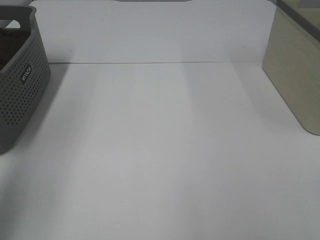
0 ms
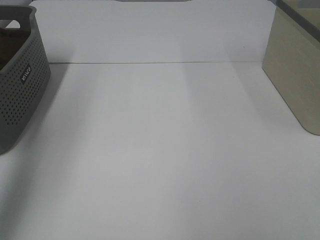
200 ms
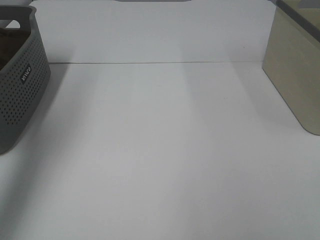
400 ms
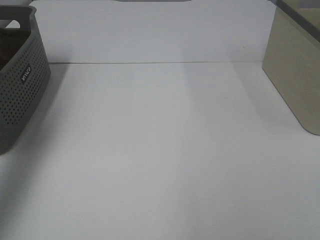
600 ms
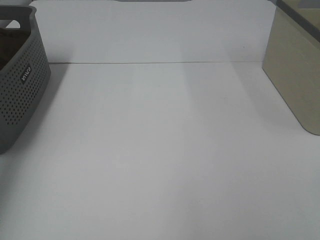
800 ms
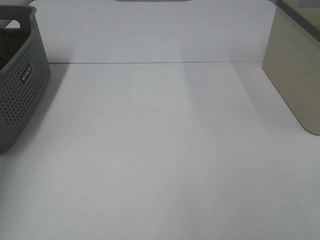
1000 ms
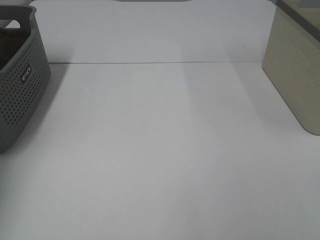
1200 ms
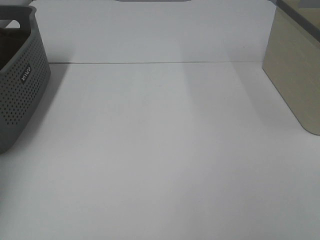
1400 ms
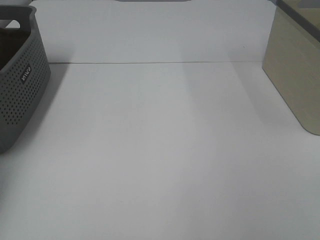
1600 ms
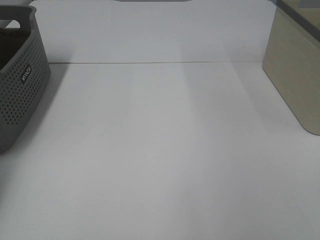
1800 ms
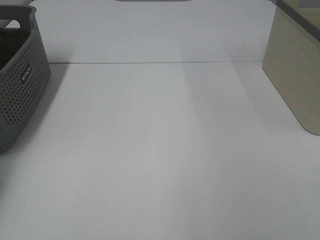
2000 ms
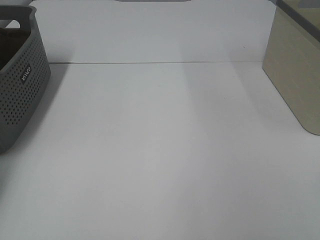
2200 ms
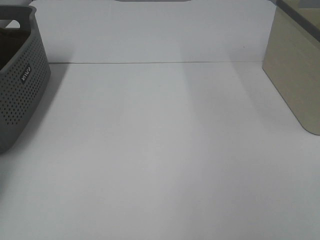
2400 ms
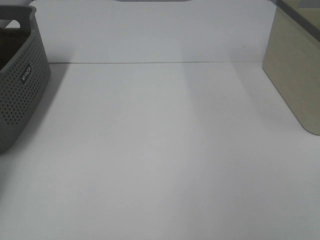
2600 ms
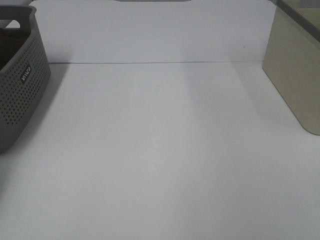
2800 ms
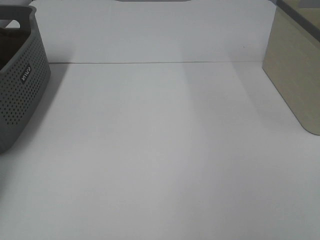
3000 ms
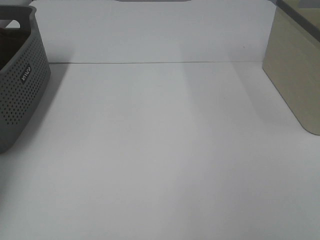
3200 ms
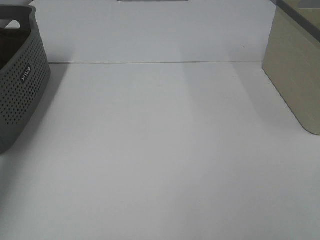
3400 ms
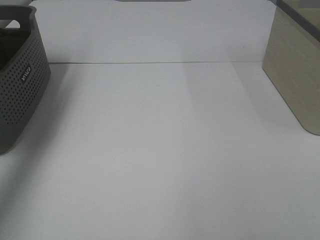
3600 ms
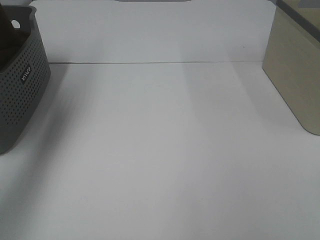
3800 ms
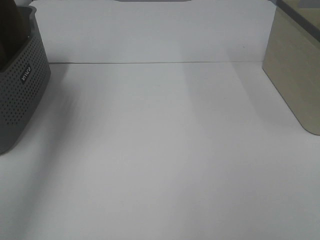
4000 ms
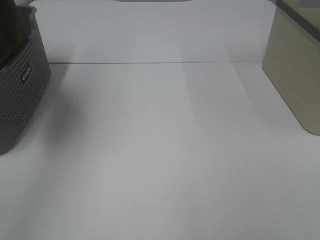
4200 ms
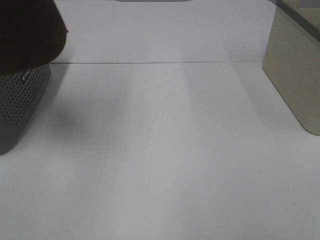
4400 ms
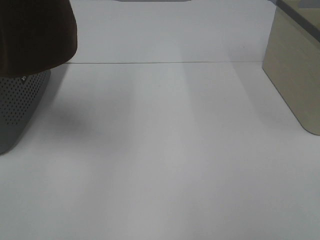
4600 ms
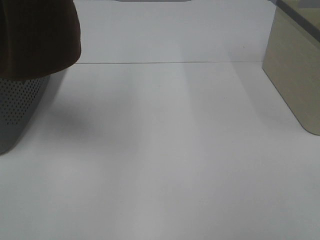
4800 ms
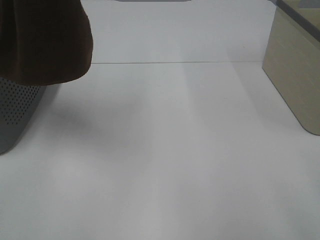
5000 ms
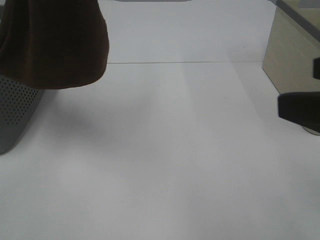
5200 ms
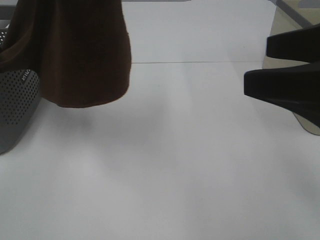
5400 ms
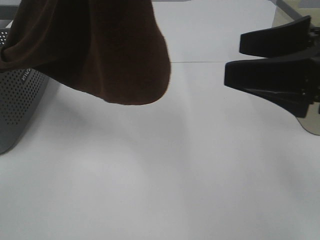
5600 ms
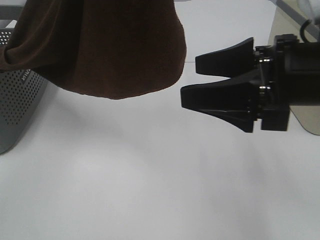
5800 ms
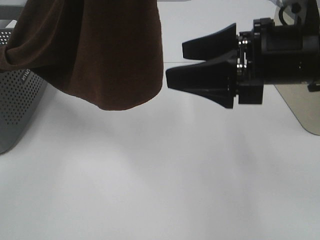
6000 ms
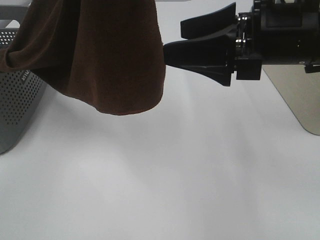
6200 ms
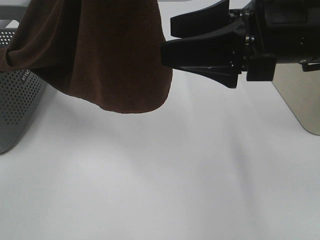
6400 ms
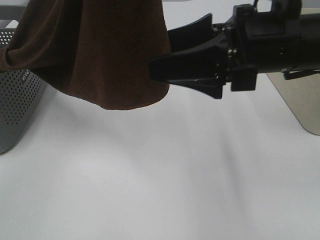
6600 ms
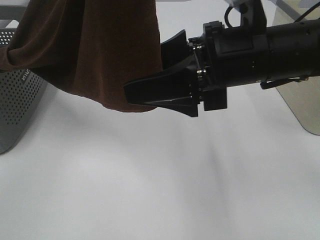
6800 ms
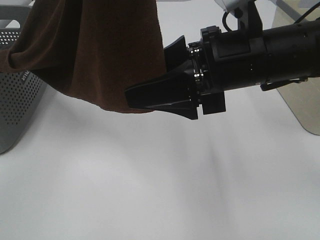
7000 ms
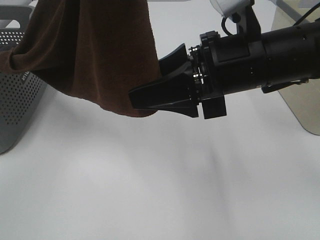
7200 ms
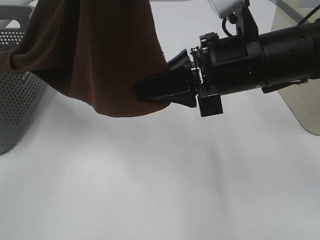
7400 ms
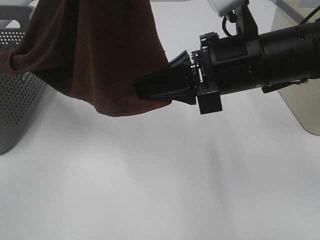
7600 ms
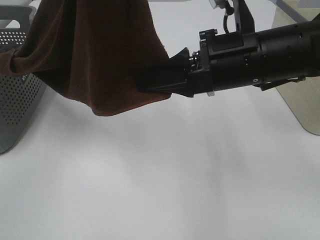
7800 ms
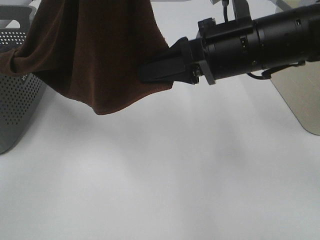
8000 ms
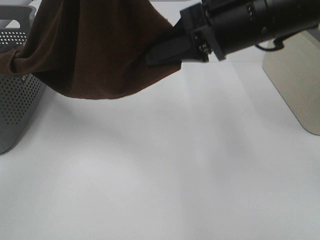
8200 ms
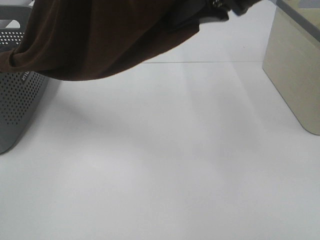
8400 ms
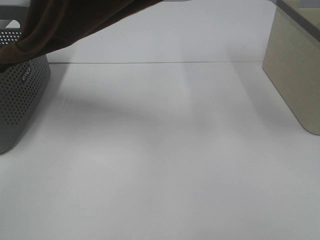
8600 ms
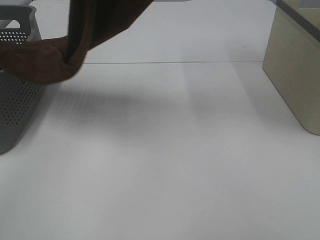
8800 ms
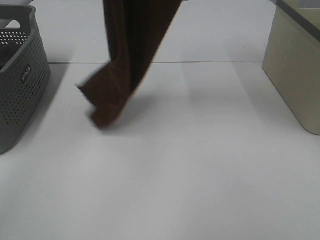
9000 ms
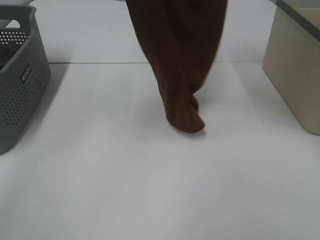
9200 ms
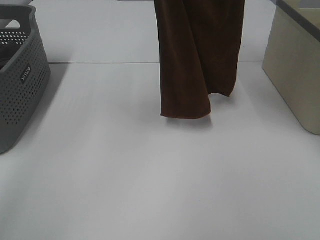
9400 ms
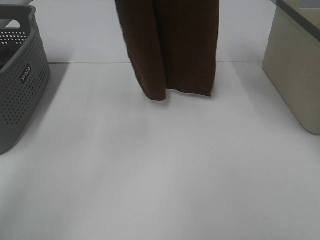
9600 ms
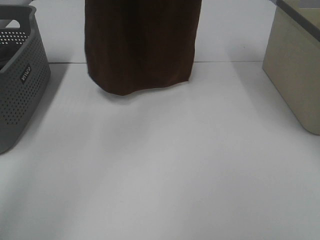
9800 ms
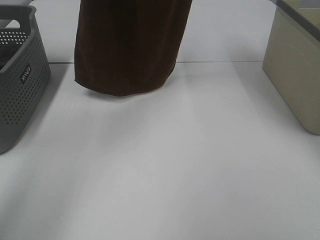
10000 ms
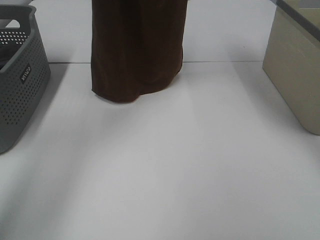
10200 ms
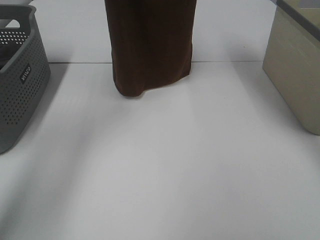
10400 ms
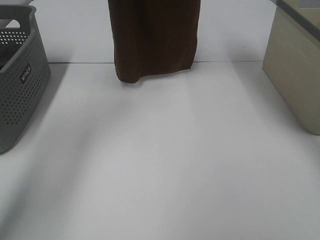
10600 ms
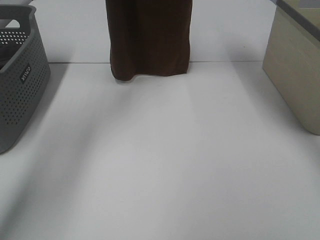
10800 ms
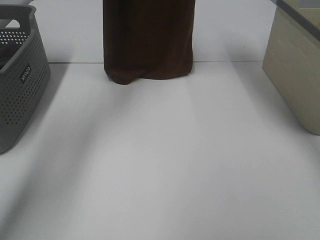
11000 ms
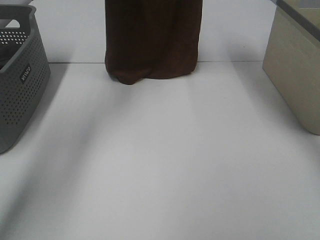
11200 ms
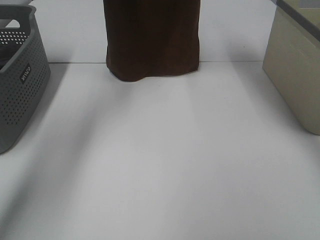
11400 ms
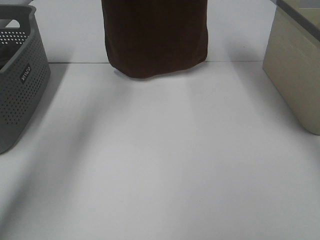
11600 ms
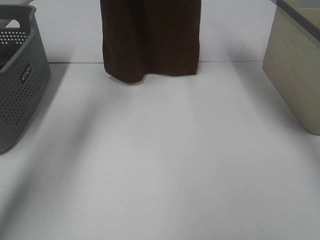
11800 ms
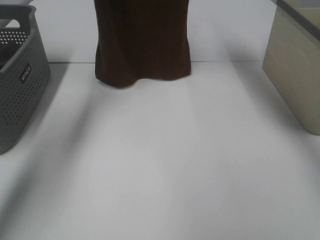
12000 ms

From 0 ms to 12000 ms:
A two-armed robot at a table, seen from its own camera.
Task of the whole recording: Remove the towel and place it.
Step, from 3600 ms to 6800 ms: Right hand: grab a corner of the brown towel and straighten it.
From 0 ms to 1600 ms: The left gripper heads forward, downward and to the left, covering about 35 cm.
From 3000 ms to 4400 ms: The left gripper is displaced upward, to the right and backward by roughly 50 cm.
From 4400 ms to 6000 ms: The left gripper travels to the right by some 10 cm; the right gripper heads forward and to the left, covering about 25 cm.
From 6000 ms to 7600 ms: The right gripper moves approximately 5 cm, and closes.
From 7600 ms to 9000 ms: The right gripper travels upward by roughly 25 cm. The left gripper goes roughly 10 cm forward.
From 9000 ms to 10400 ms: The right gripper heads forward, covering roughly 10 cm. The left gripper shifts about 20 cm forward and downward.
From 10400 ms to 12000 ms: The left gripper travels forward by approximately 5 cm.

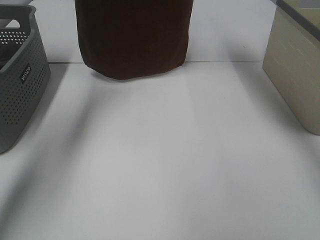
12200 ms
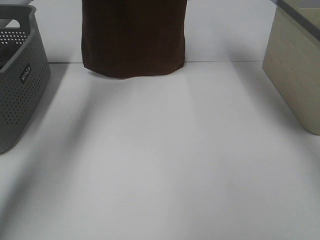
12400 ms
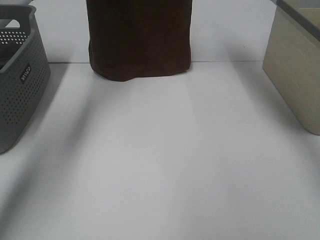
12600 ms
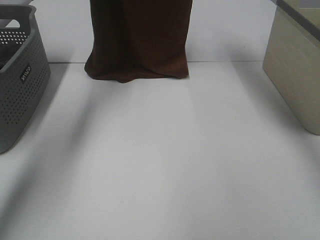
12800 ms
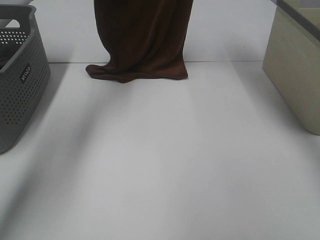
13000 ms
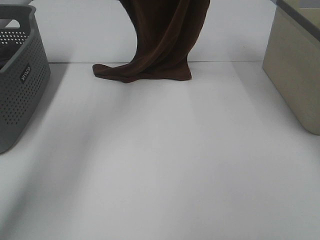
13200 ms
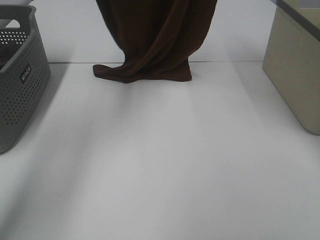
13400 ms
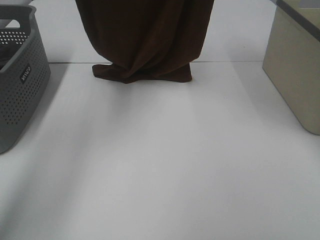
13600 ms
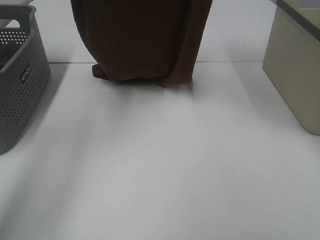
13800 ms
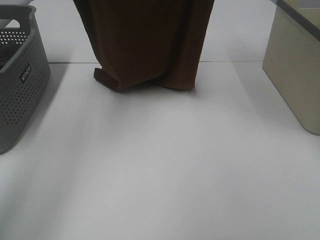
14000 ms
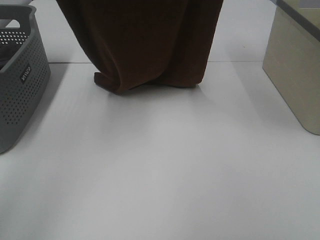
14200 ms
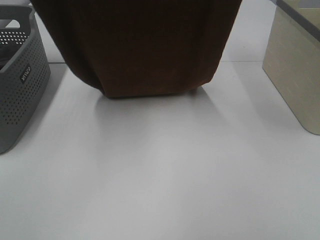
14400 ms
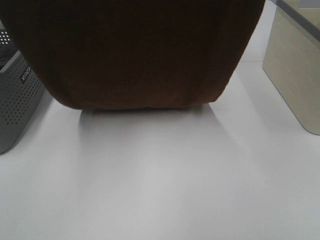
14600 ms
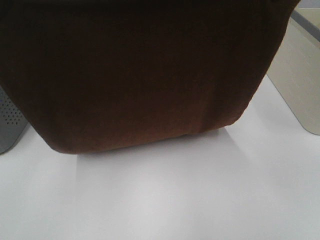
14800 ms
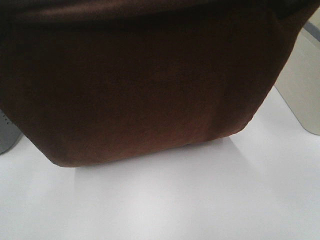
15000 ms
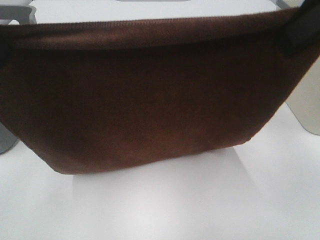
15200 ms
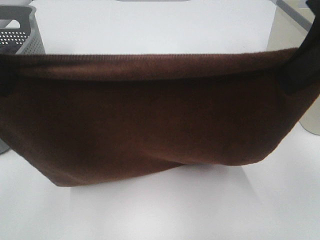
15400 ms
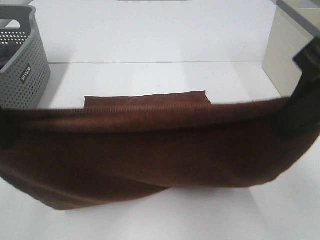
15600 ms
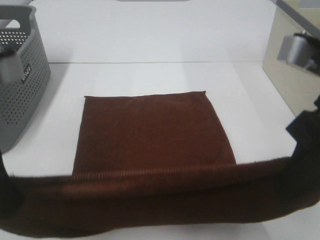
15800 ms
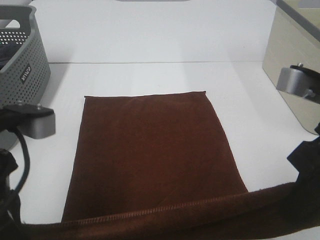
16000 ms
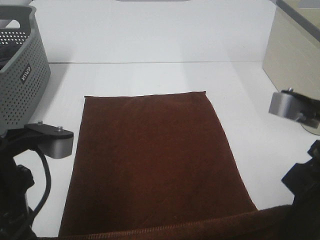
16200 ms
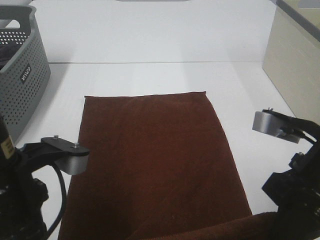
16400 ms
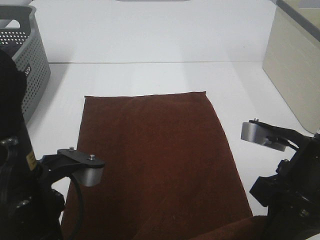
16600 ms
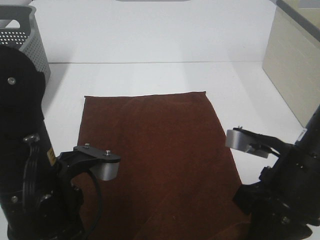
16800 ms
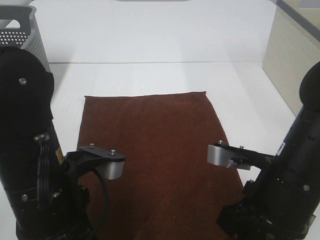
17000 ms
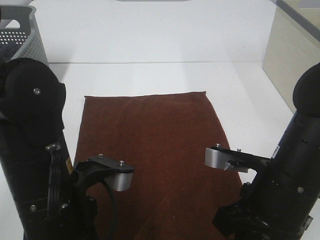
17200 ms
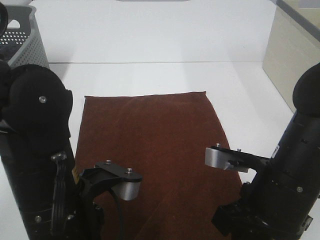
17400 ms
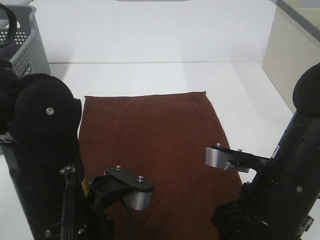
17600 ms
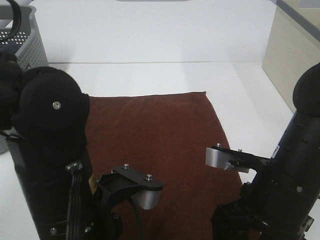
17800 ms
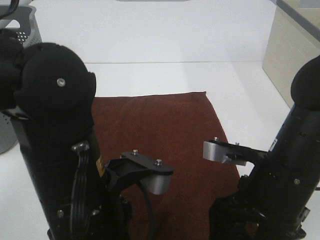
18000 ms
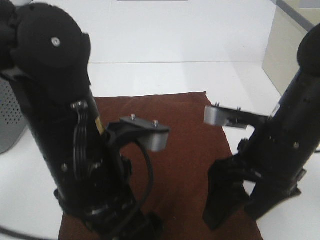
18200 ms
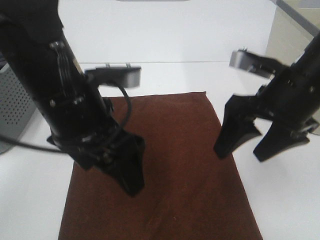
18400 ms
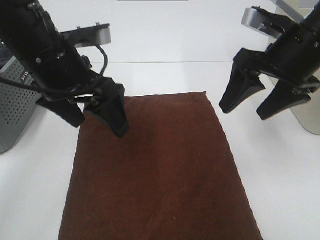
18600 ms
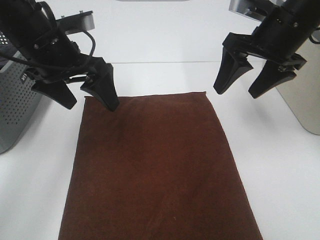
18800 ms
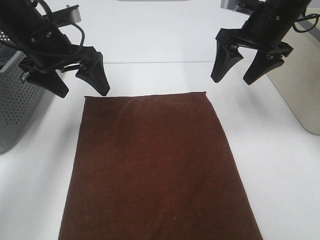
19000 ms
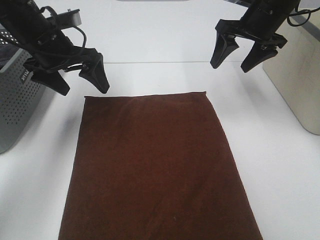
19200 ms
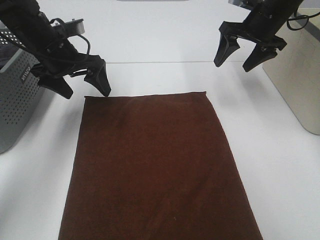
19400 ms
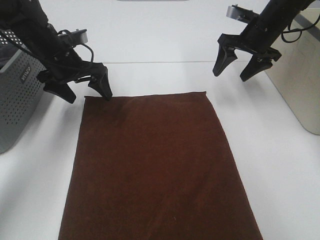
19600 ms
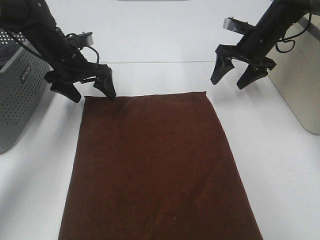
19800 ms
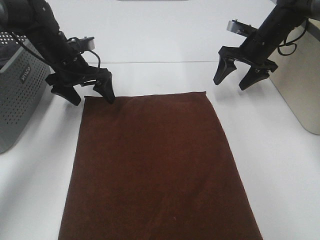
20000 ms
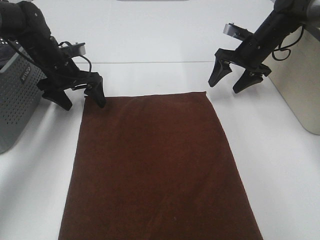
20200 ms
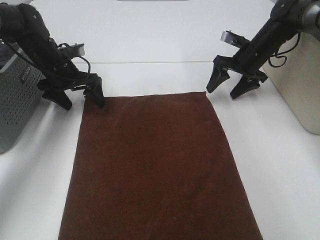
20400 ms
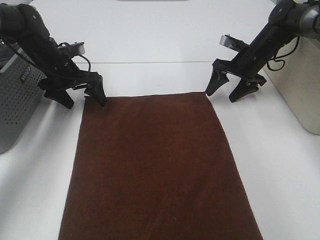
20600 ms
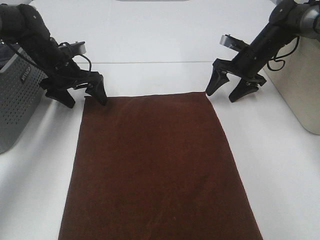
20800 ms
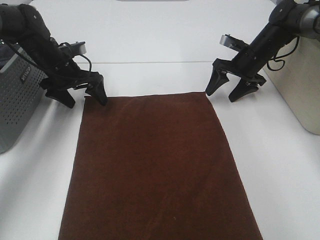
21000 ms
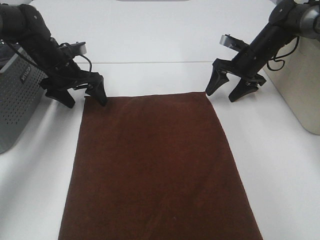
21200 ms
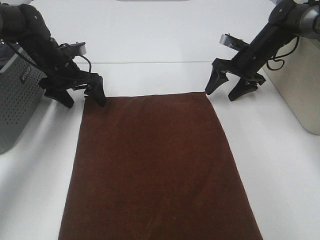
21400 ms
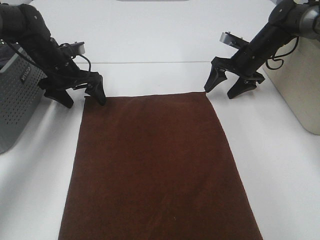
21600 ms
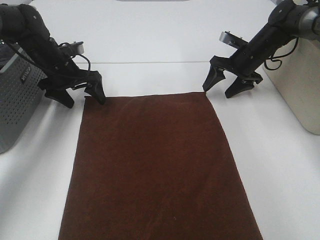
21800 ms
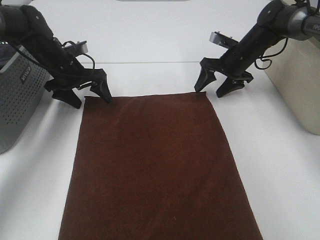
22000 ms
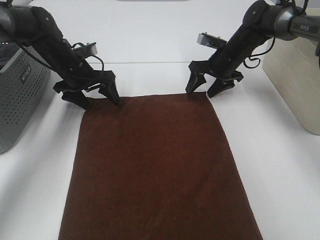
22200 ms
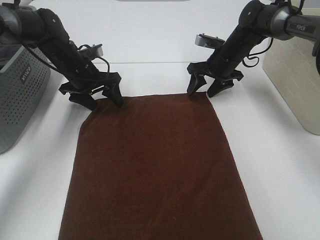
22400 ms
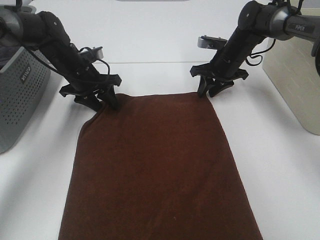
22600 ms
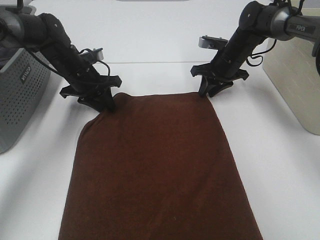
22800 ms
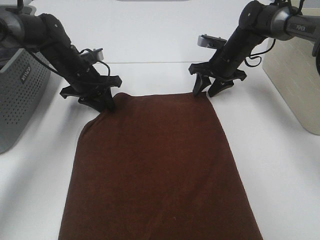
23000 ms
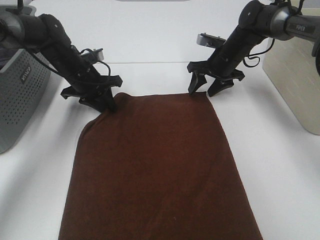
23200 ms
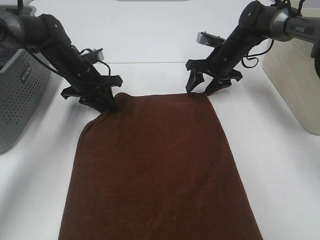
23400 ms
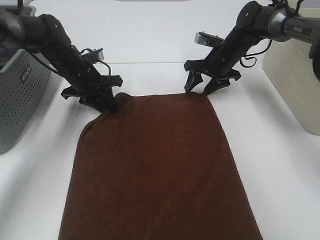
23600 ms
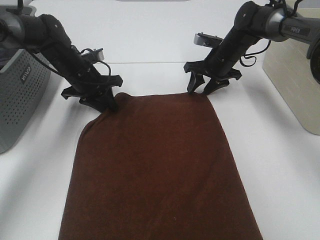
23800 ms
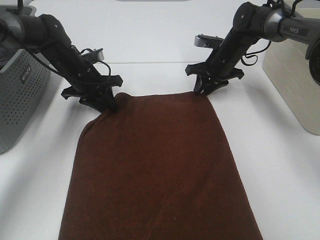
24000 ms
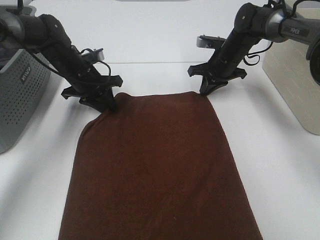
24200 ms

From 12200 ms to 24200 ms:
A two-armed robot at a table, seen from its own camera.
Task of the whole recording: Remove the towel and place it.
From 12200 ms to 13800 ms: Both grippers move backward, about 10 cm.
From 13800 ms to 15200 ms: Both grippers travel together backward, approximately 20 cm.
From 15200 ms to 16600 ms: Both grippers move downward, roughly 20 cm.
From 16600 ms to 18200 ms: The left gripper moves to the right, approximately 5 cm, and opens its fingers. Meanwhile the right gripper opens.
From 18200 ms to 19800 ms: The right gripper shifts about 30 cm forward, while the left gripper shifts some 30 cm forward and to the left.
From 19800 ms to 21200 ms: The right gripper goes roughly 5 cm downward.
From 21200 ms to 22600 ms: The right gripper is displaced to the left by approximately 5 cm, and closes its fingers. Meanwhile the left gripper closes up.
From 22600 ms to 24200 ms: The right gripper closes.
